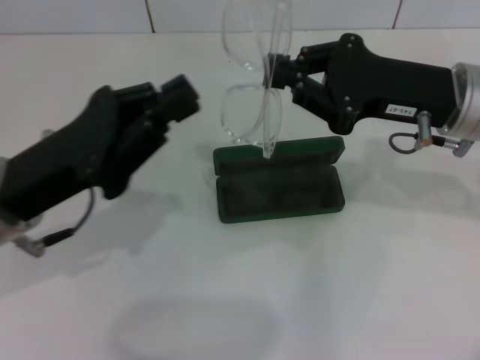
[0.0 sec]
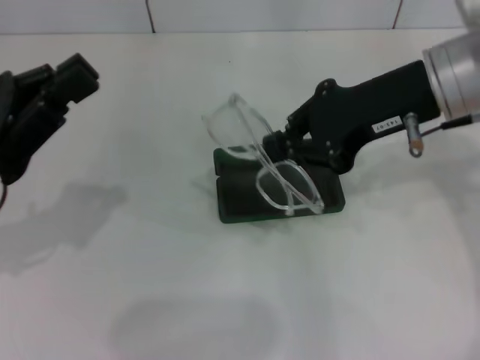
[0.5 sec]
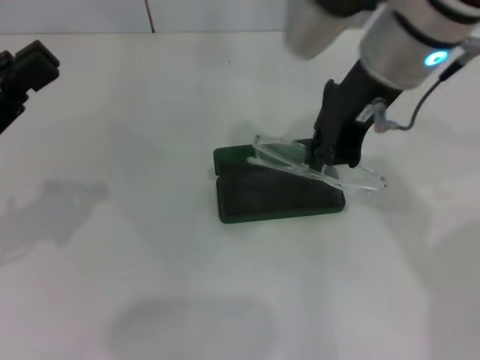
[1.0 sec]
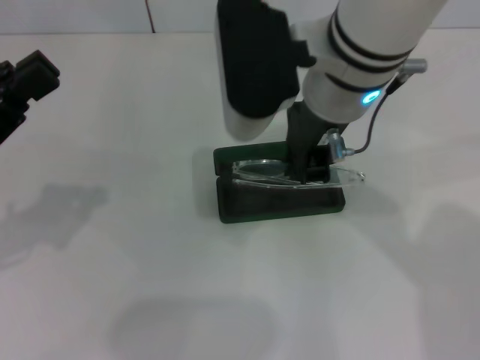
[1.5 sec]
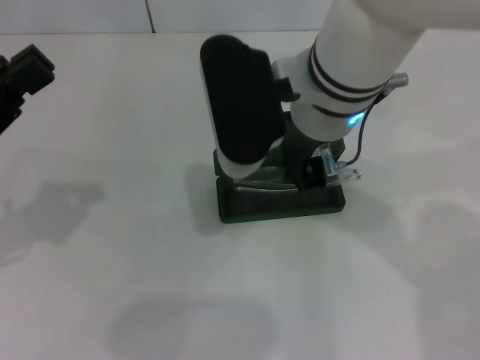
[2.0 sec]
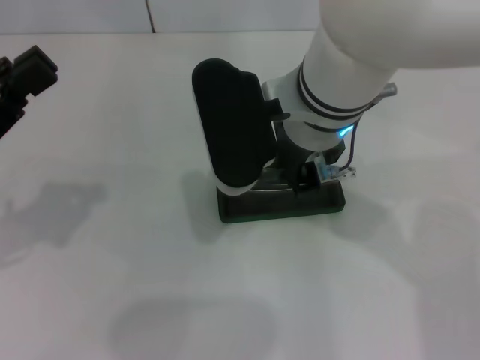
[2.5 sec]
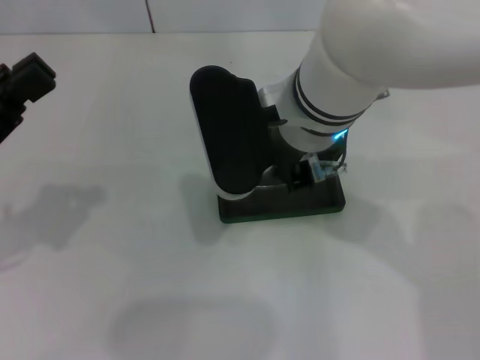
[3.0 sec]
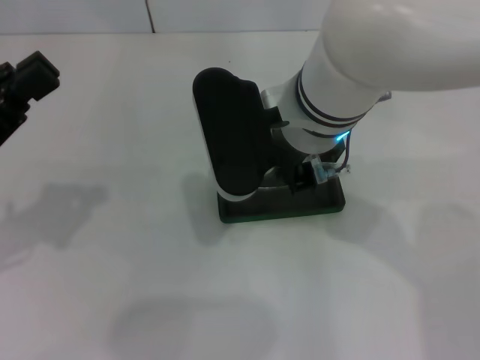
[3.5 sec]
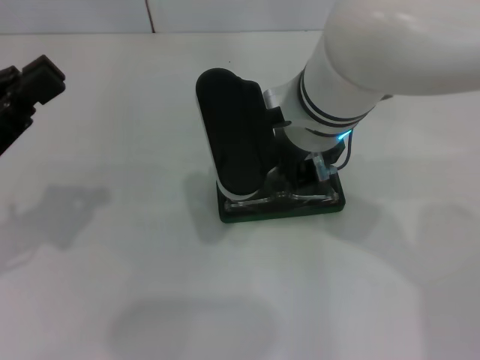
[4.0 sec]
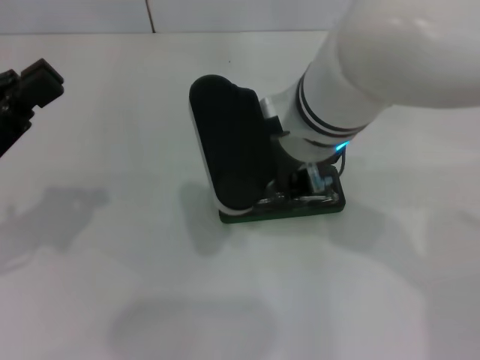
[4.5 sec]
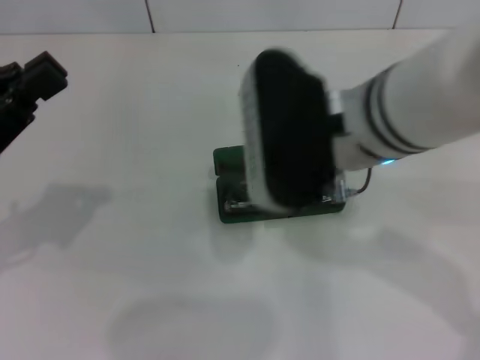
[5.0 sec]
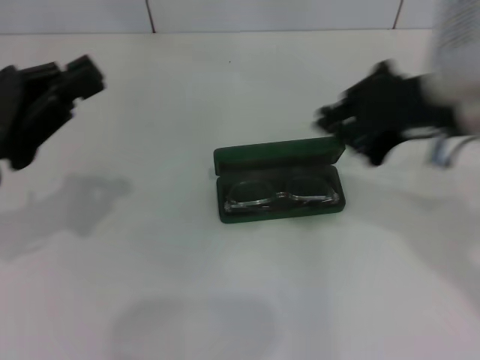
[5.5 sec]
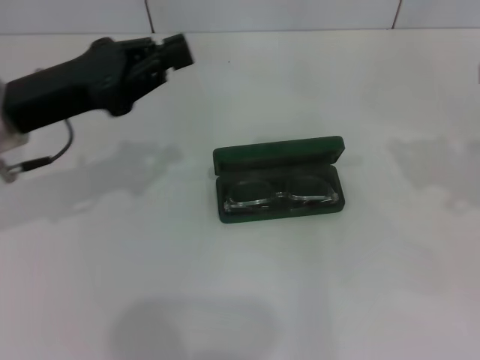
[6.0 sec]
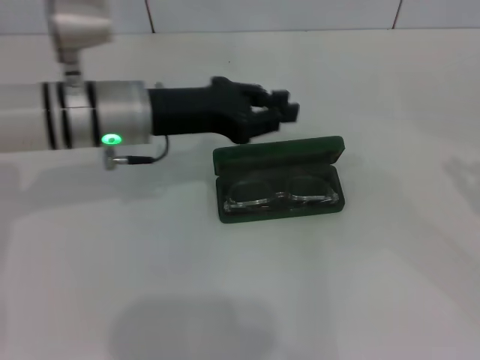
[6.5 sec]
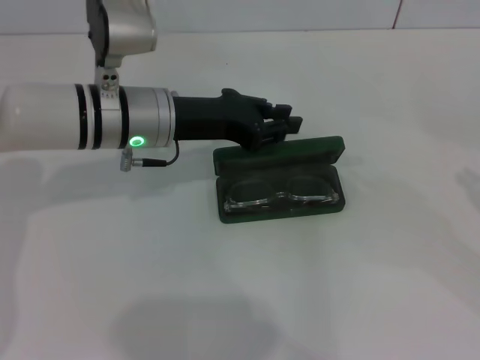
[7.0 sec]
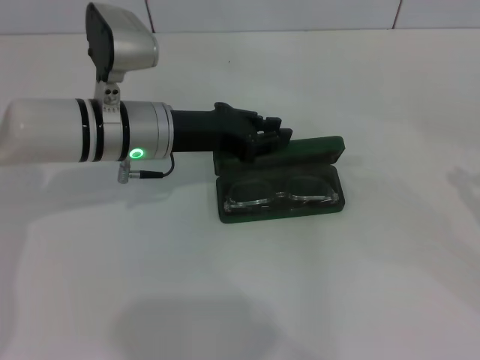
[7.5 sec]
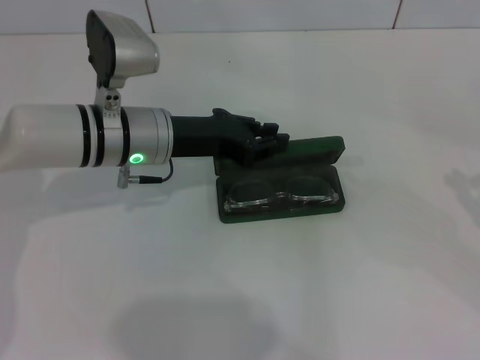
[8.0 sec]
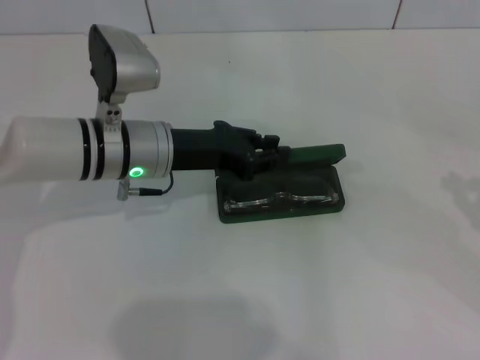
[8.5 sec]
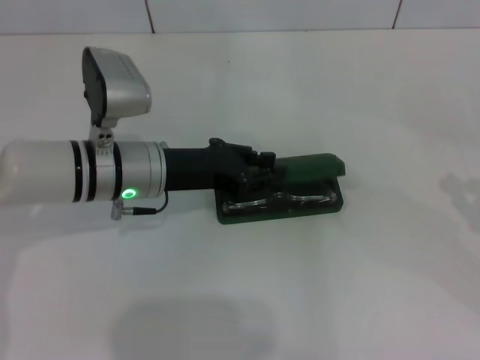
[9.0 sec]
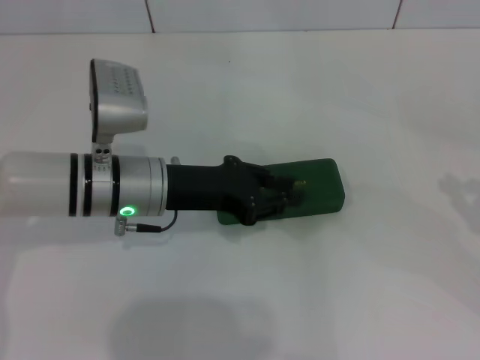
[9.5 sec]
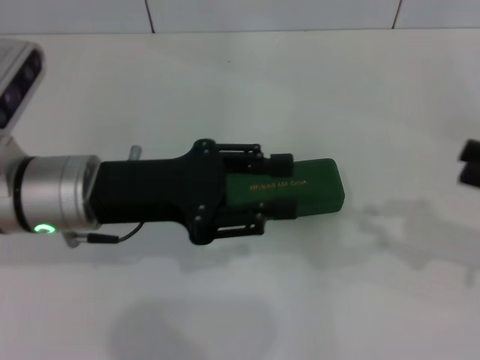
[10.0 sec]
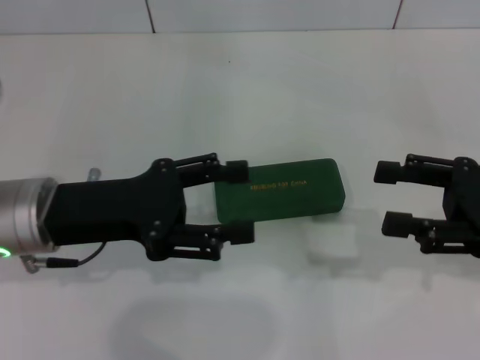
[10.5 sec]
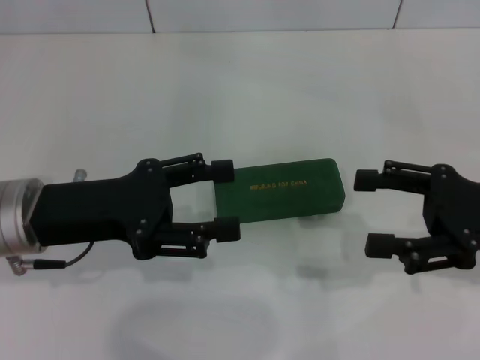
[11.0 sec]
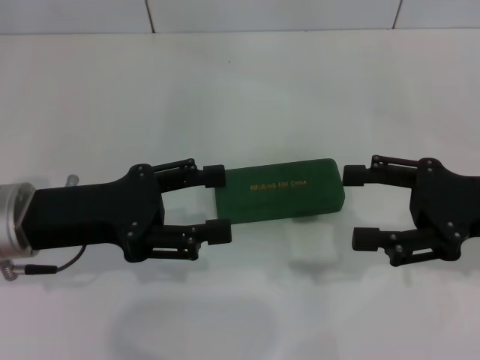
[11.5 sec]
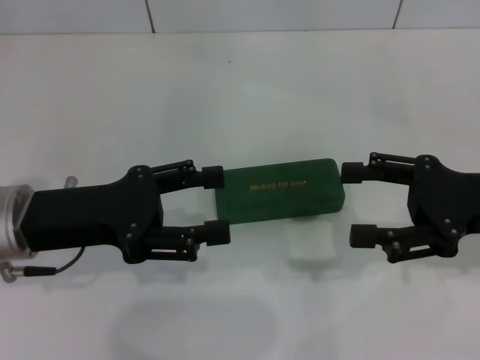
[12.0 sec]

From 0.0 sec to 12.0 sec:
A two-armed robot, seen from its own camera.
Step, from 0.0 sec to 3.5 sec: Put the glasses into the case with your right hand.
Step, from 4.0 sec to 9.0 sec: Close the glasses case with your left hand.
From 0.0 sec to 2.0 sec: The left gripper goes some 10 cm to the left, while the right gripper moves to the left, approximately 15 cm.
From 2.0 sec to 4.0 sec: There are only small adjustments of the grippers.
From 4.0 sec to 6.0 sec: The right gripper is displaced to the right by approximately 30 cm. The left gripper is displaced forward and to the right by some 10 cm.
From 6.0 sec to 8.0 sec: The right gripper shifts about 10 cm downward, to the right and backward. The left gripper travels to the right and downward by approximately 10 cm.
From 8.0 sec to 10.0 sec: The right gripper moves to the left, about 5 cm; the left gripper is displaced backward by roughly 10 cm.
From 10.0 sec to 12.0 sec: The right gripper travels to the left by approximately 10 cm, and opens; the left gripper heads to the left, covering approximately 5 cm, and opens up.

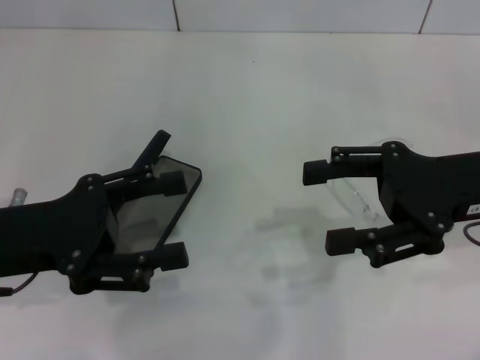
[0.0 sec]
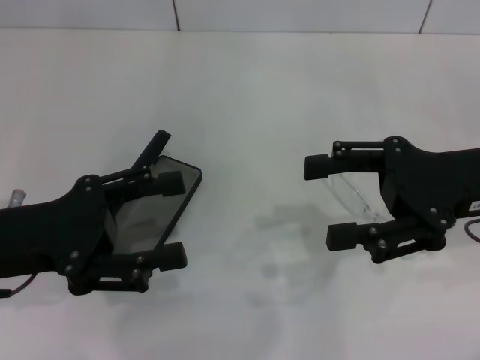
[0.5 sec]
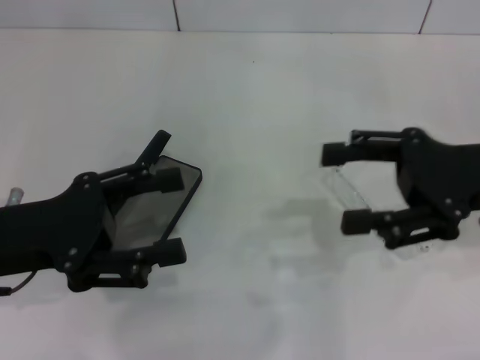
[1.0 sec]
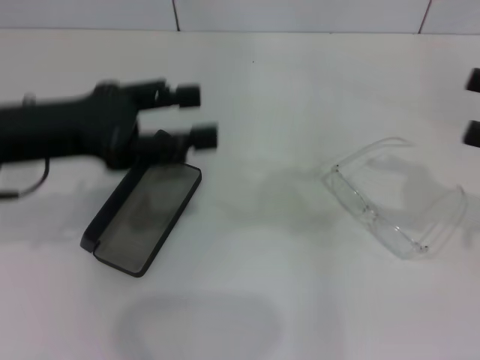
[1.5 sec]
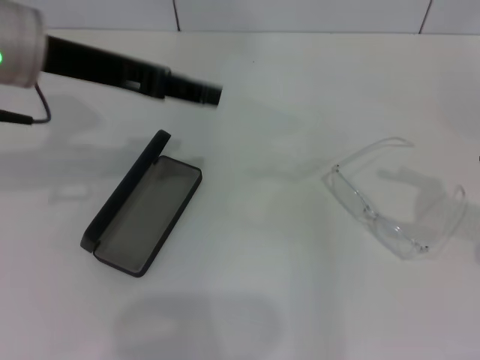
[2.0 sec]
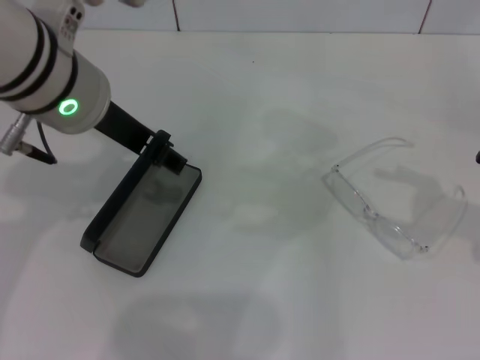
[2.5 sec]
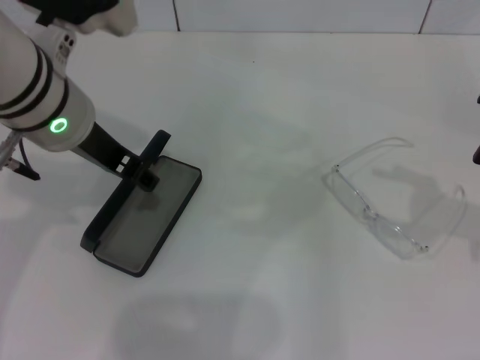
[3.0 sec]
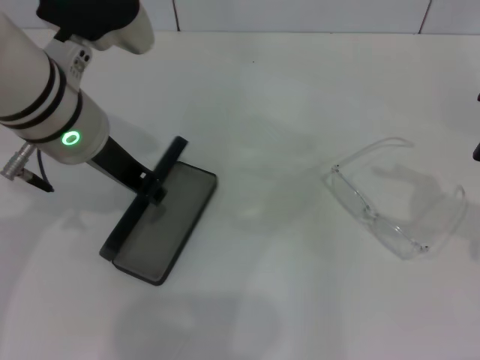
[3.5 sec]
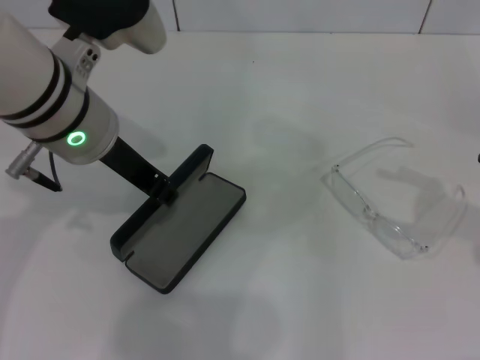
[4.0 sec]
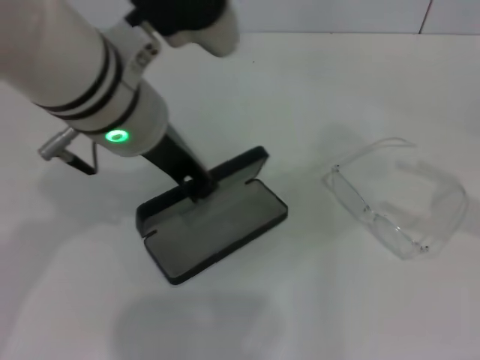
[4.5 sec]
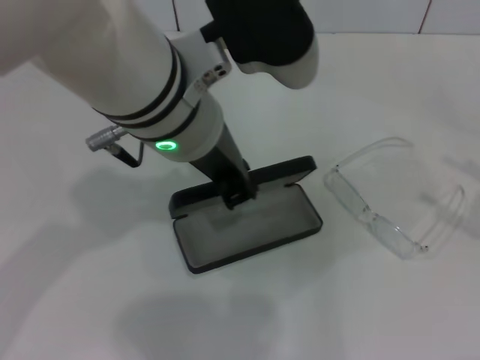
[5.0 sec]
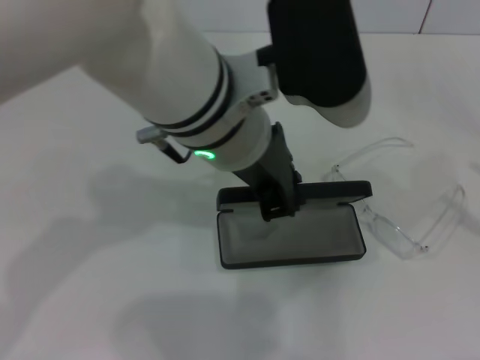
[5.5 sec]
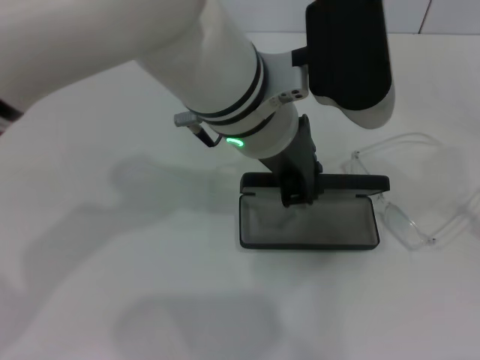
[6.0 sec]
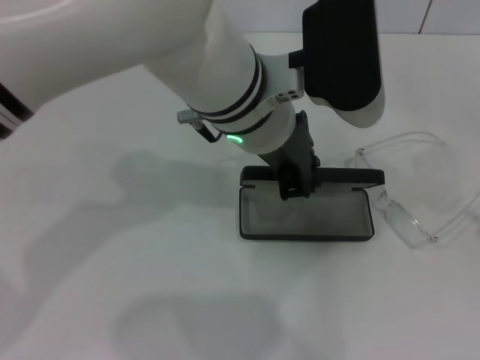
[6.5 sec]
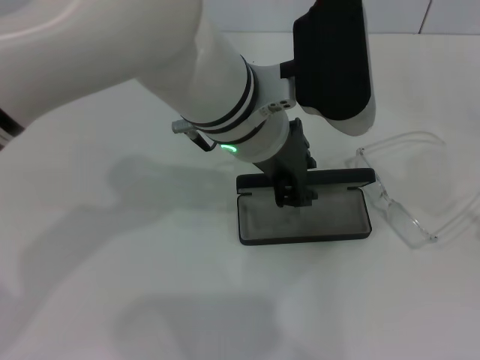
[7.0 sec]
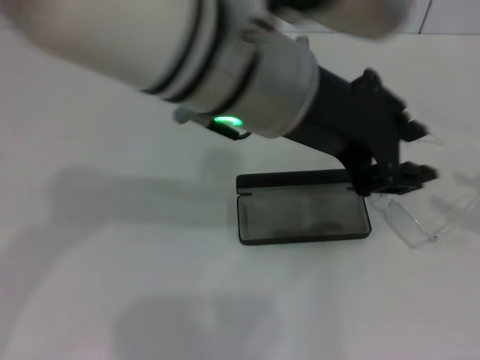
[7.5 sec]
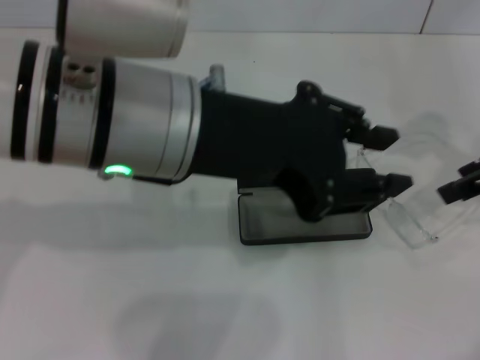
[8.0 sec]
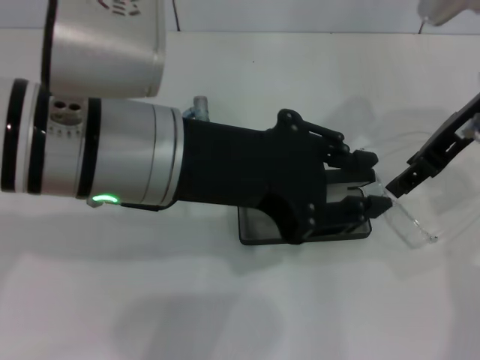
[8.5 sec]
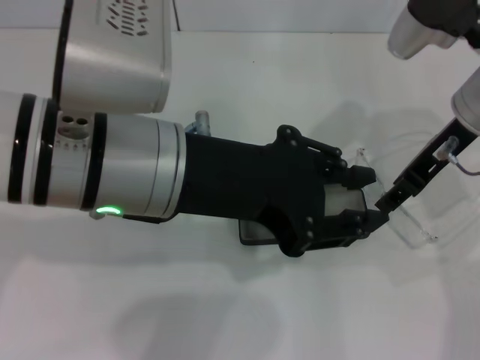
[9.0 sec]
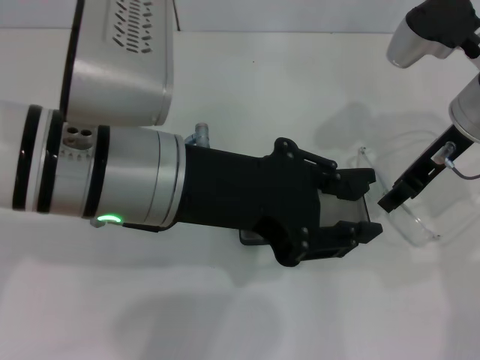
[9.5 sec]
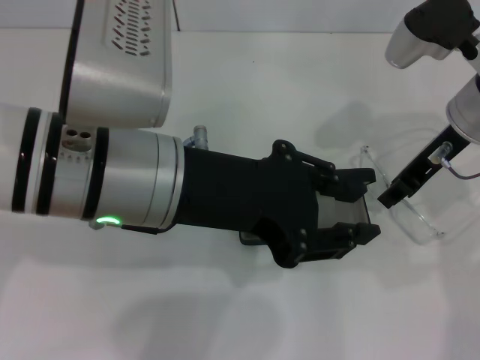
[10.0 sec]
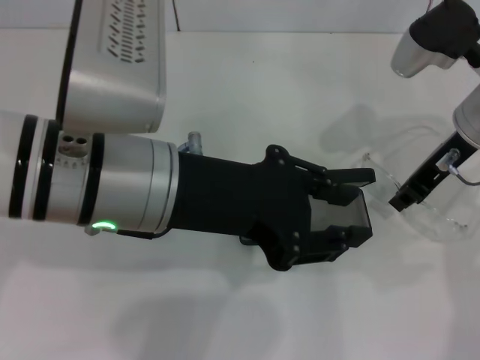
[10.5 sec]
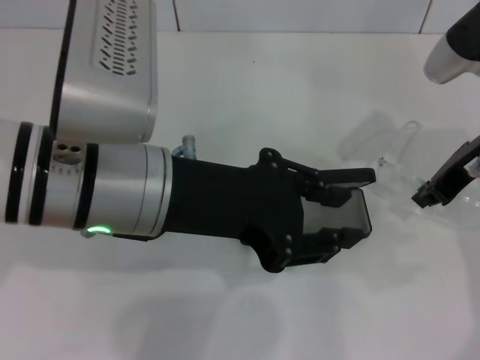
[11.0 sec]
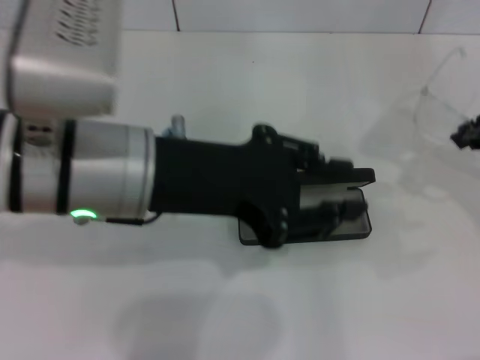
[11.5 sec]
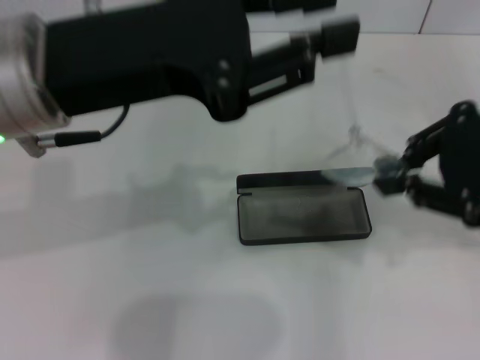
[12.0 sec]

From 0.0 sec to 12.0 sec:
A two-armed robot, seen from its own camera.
Step, from 0.0 sec to 3.5 sec: Grab the glasses case with your left hand.
Step, from 4.0 sec to 7.0 sec: Place the glasses case in the center of the table with your left hand.
Step, from 7.5 sec to 10.5 sec: Grab the eyeglass frame with your right hand.
From 0.0 sec to 2.0 sec: The left gripper heads upward, forward and to the right, covering about 15 cm. The right gripper travels to the right by about 15 cm.
From 2.0 sec to 4.0 sec: The left gripper moves to the right, some 5 cm, and closes up.
From 4.0 sec to 6.0 sec: The right gripper goes roughly 10 cm backward and to the right, while the left gripper travels to the right by approximately 15 cm.
From 6.0 sec to 8.0 sec: The left gripper moves to the left and backward, approximately 10 cm; the right gripper moves forward, to the left and upward, roughly 25 cm.
From 8.0 sec to 10.0 sec: The right gripper moves to the left, downward and forward, some 10 cm, and closes.
From 10.0 sec to 12.0 sec: The left gripper is displaced to the left by some 5 cm, while the right gripper goes about 15 cm backward and upward.

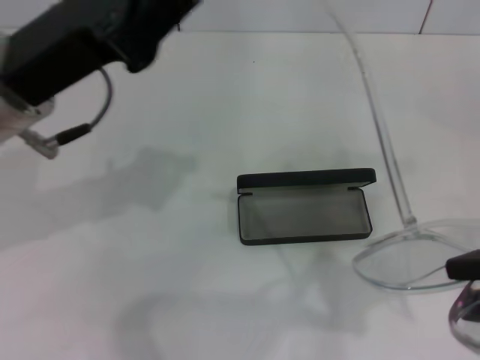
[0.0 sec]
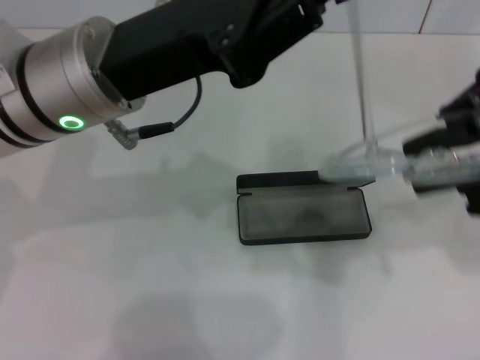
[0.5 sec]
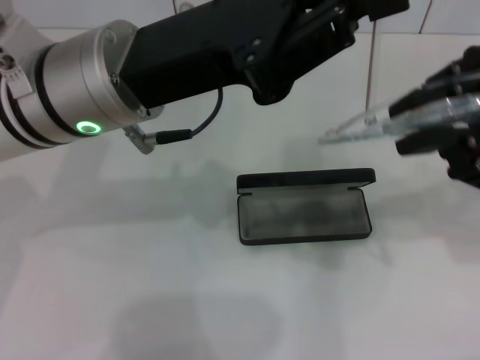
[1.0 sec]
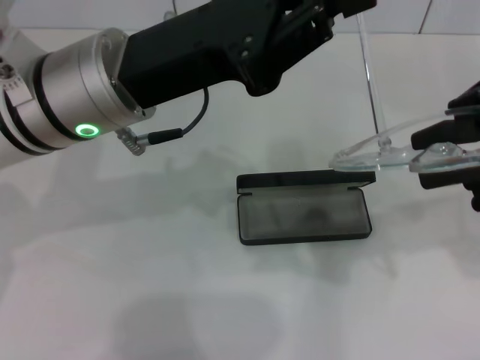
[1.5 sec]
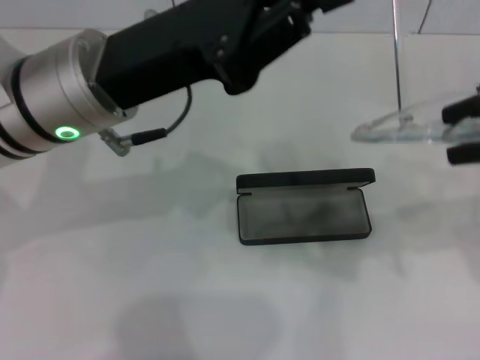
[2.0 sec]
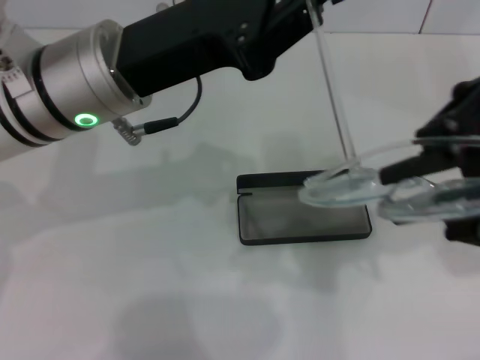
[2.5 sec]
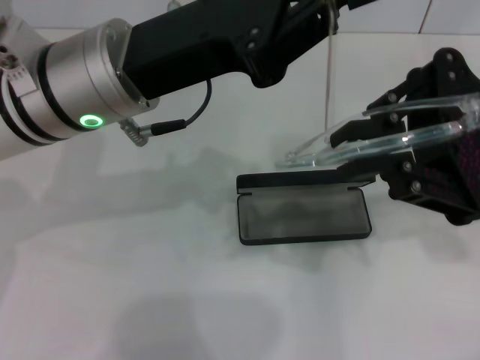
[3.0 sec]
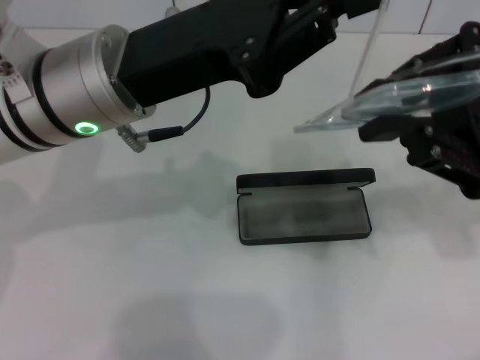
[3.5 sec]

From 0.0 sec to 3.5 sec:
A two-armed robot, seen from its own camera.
From 0.0 sec to 2.0 sec: The left gripper ends up about 5 cm from where it was.
From 2.0 sec to 3.5 sec: There are only small adjustments of the grippers.
